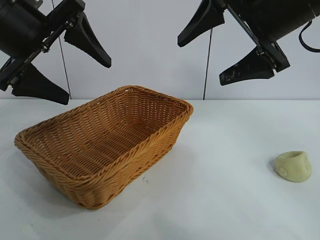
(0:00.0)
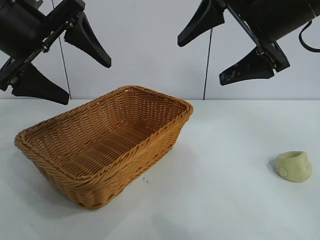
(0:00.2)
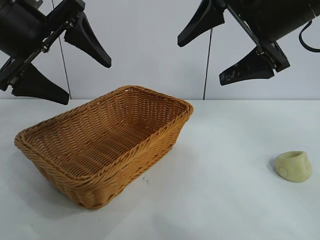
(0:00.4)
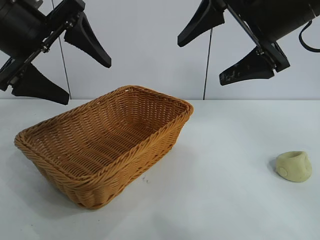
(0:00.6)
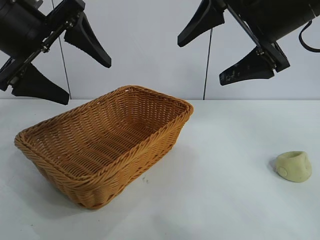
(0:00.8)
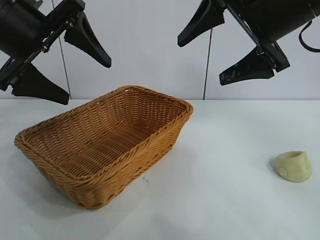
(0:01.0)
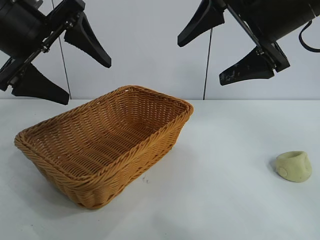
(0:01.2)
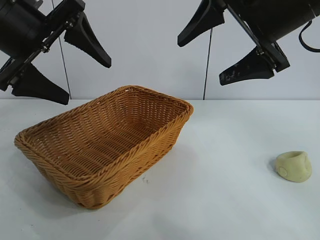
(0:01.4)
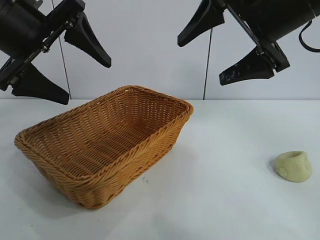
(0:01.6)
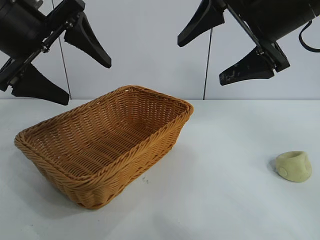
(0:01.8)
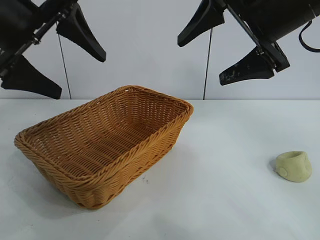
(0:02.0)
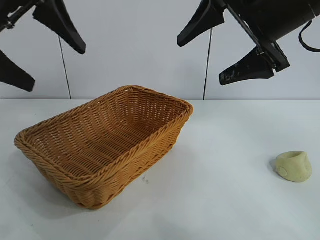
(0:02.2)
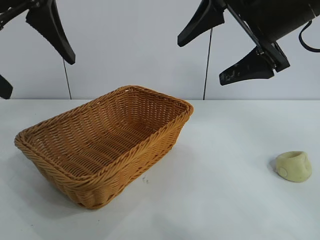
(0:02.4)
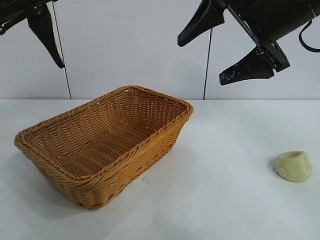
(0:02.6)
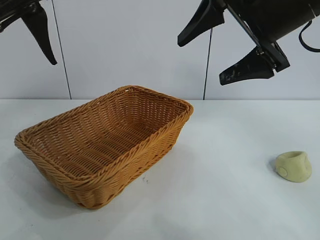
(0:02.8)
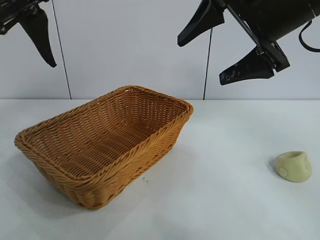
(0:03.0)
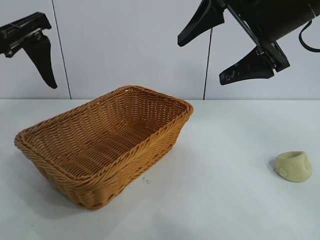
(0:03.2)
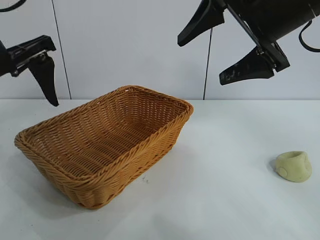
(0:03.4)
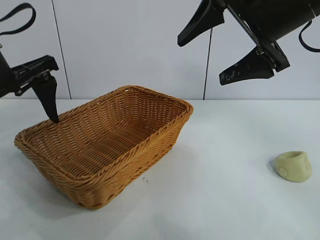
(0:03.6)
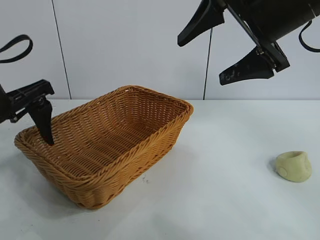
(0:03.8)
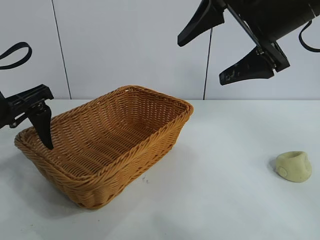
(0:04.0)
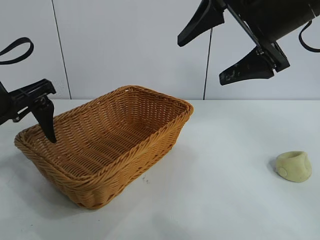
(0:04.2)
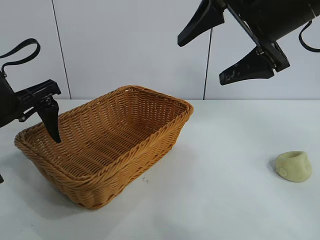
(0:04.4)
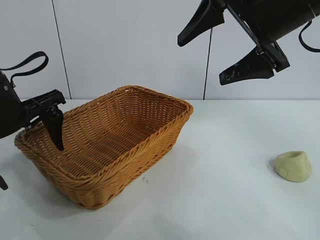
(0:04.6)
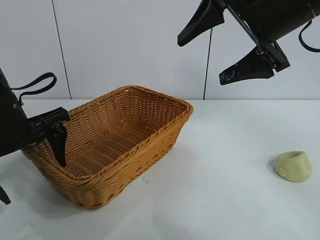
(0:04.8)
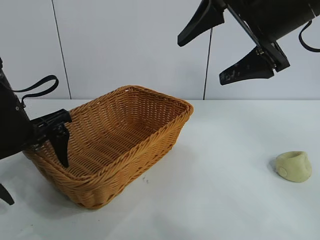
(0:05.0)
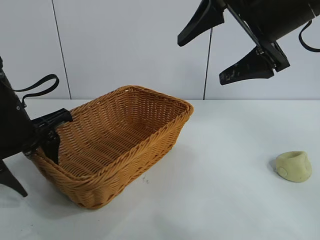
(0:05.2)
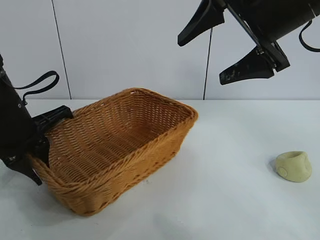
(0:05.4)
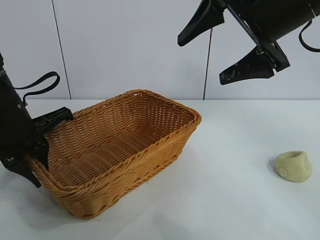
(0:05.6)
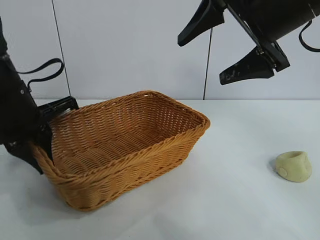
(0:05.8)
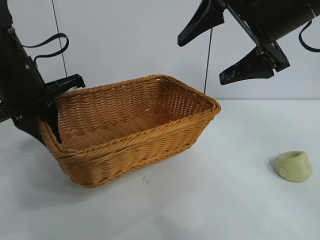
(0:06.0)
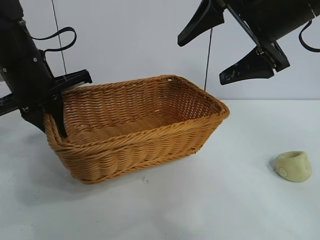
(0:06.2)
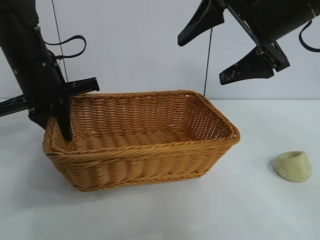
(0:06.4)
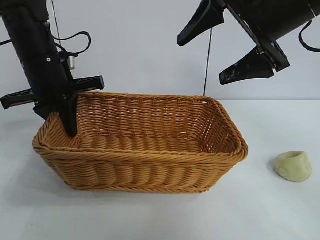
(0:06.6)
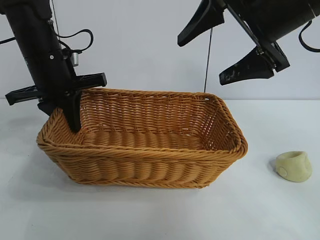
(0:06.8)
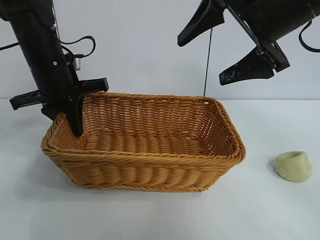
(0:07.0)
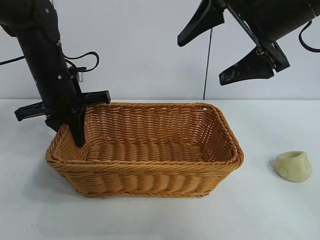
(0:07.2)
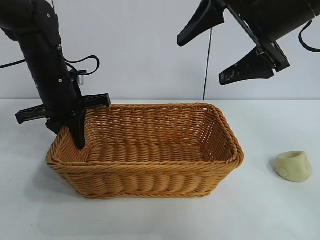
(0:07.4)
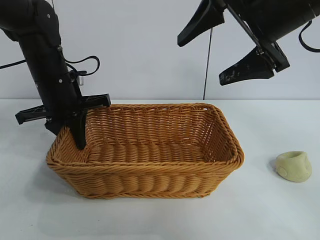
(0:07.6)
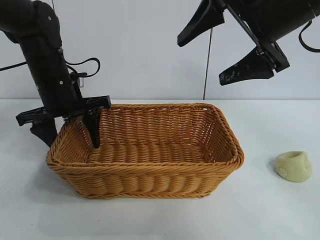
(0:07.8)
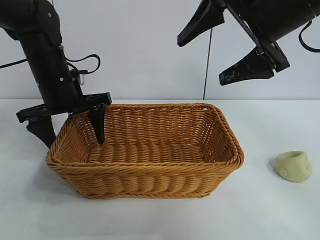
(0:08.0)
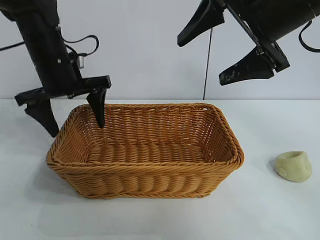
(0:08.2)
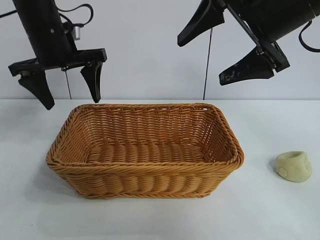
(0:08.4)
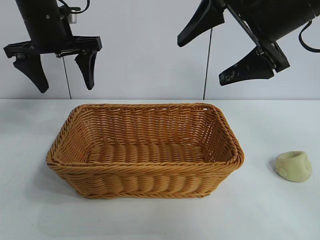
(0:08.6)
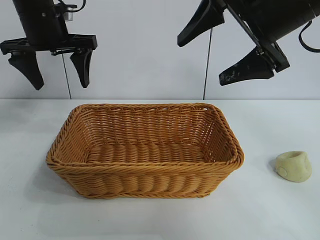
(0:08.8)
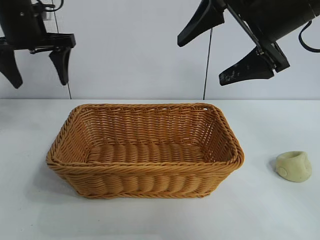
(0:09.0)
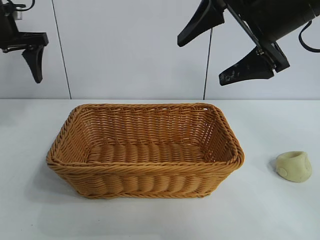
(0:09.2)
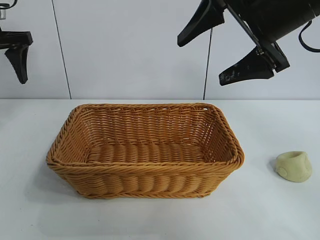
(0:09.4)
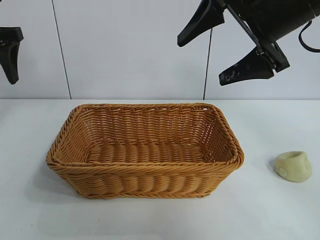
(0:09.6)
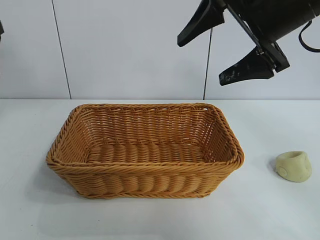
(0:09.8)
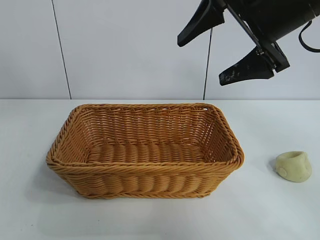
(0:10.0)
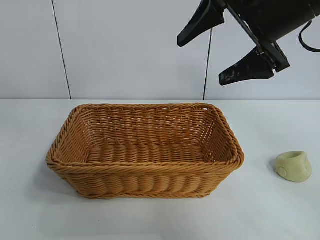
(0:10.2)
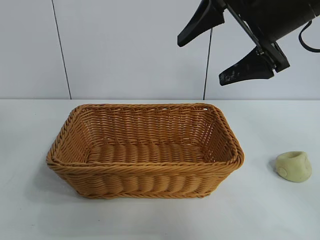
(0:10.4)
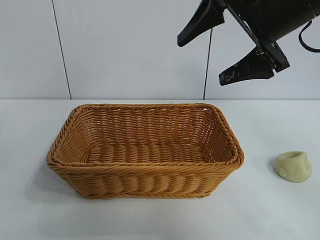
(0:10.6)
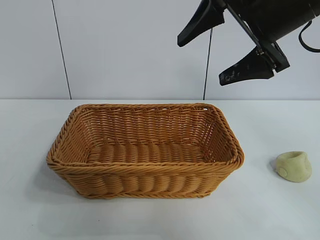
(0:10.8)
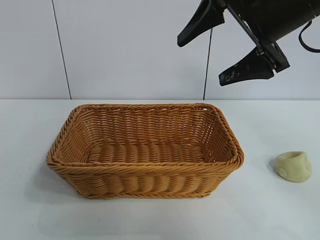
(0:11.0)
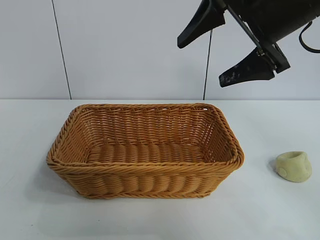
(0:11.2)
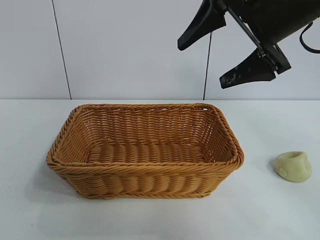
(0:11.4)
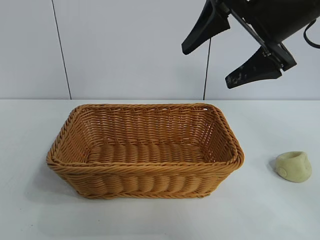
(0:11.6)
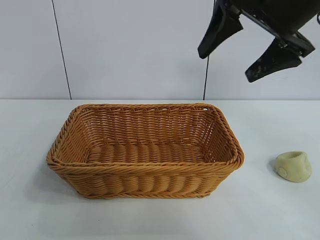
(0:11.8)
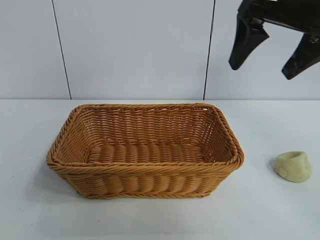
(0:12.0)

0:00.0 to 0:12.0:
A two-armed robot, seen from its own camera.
Task of the whole recording: pick up the egg yolk pastry and put it into the basket.
Step, 0:01.8 to 0:05.2: Grasp the basket with left gripper.
Step, 0:05.4 to 0:07.6: Place the basket in the center of view with left gripper.

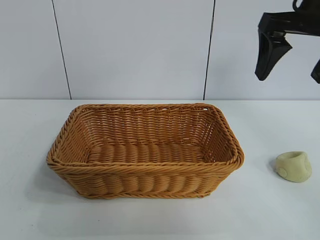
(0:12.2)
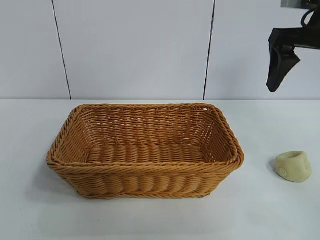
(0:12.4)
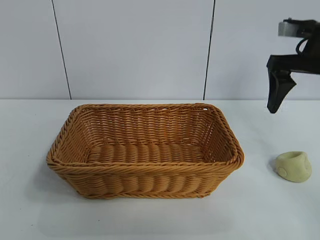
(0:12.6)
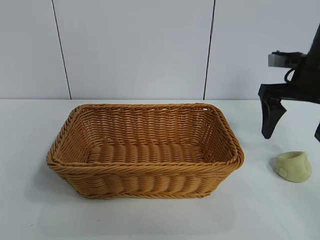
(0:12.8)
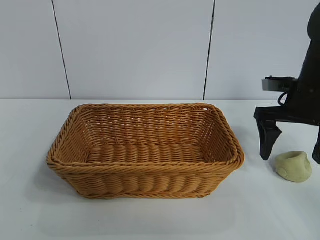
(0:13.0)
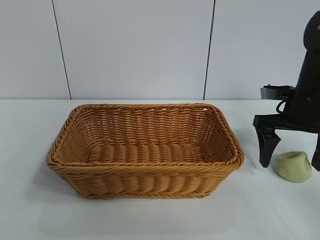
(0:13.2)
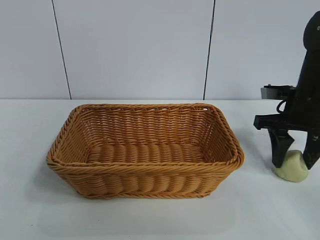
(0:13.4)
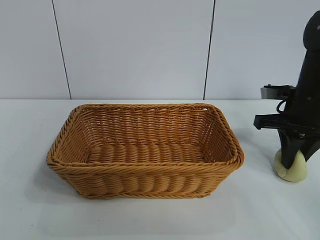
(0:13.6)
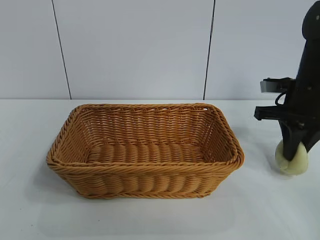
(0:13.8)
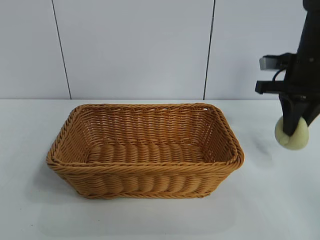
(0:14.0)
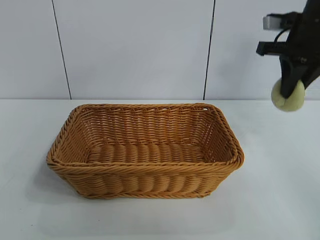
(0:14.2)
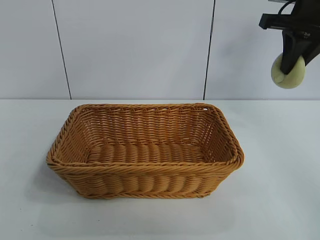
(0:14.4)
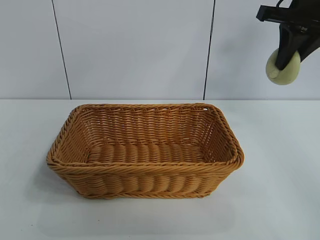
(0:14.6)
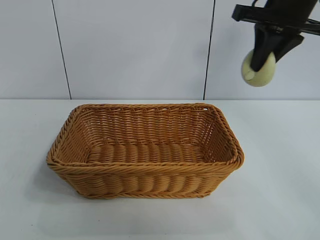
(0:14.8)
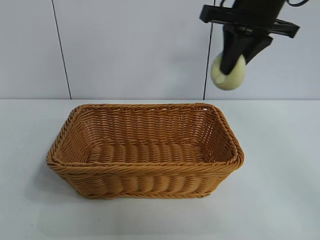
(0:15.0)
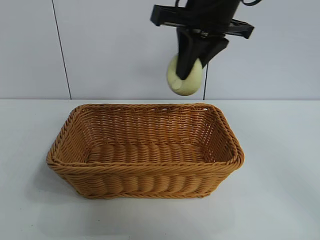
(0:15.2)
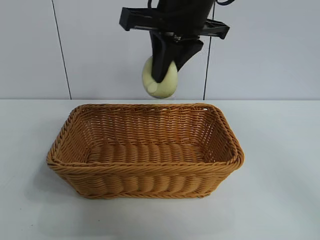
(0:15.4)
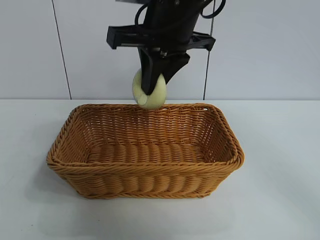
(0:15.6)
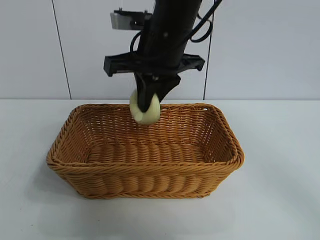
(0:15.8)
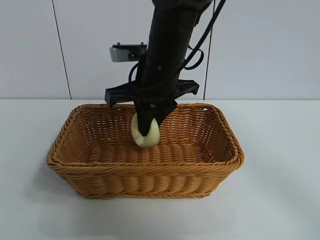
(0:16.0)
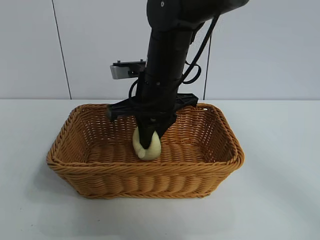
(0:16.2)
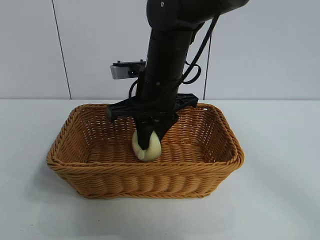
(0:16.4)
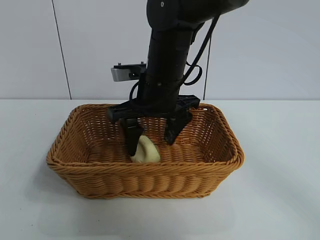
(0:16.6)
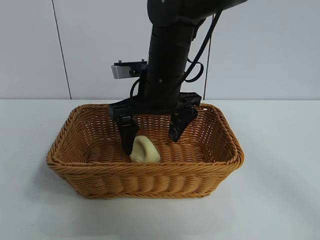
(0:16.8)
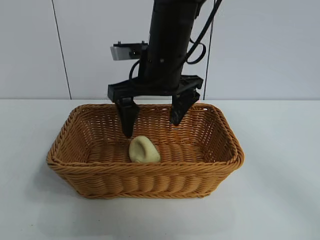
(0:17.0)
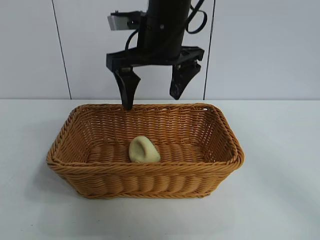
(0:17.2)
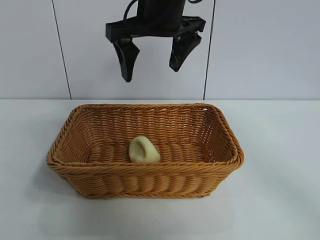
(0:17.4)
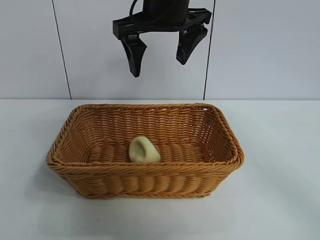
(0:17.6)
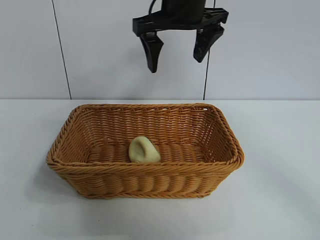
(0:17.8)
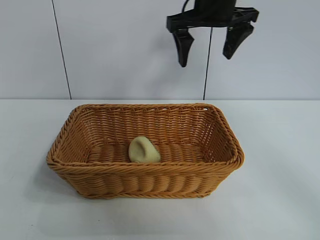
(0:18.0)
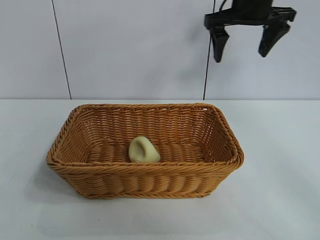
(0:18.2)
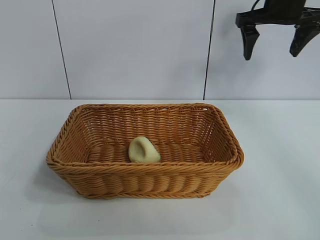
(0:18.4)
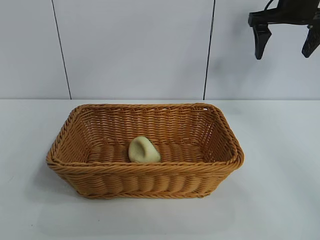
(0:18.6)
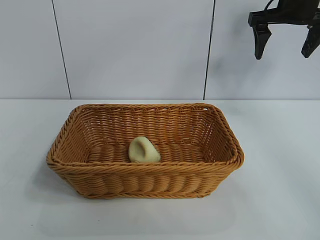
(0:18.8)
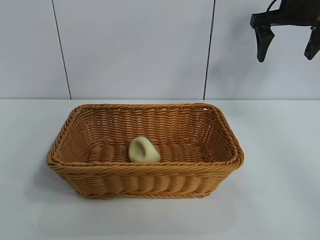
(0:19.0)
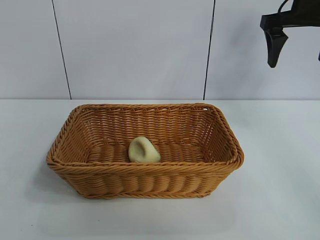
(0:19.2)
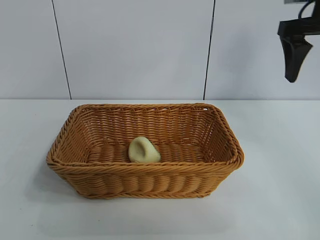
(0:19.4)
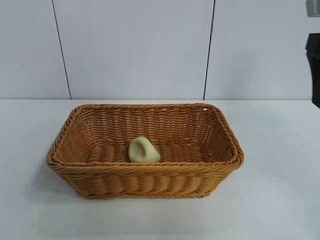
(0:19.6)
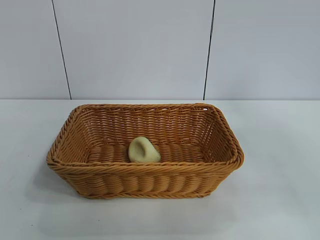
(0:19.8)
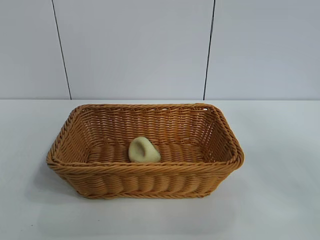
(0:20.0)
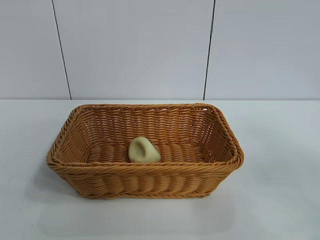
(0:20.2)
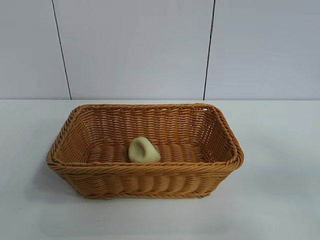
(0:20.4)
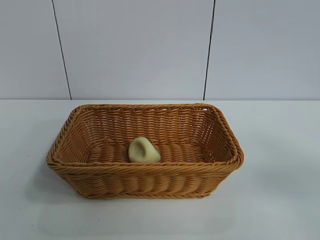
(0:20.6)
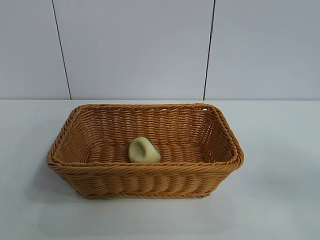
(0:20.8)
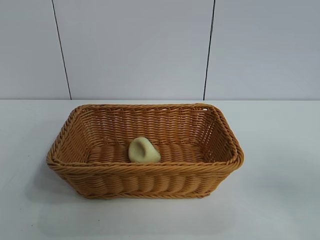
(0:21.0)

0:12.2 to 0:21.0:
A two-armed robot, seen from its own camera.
Task of the whole recording: pick up the egg yolk pastry and put it into the basket.
Step, 0:13.8 to 0:16.4: Place the egg yolk pastry in the basket with right gripper.

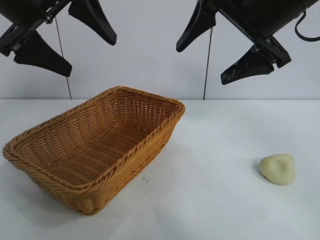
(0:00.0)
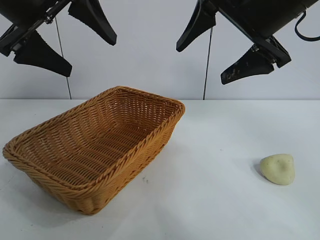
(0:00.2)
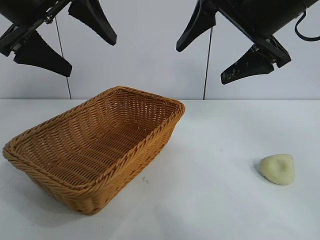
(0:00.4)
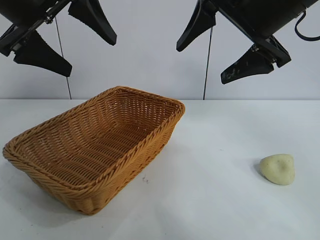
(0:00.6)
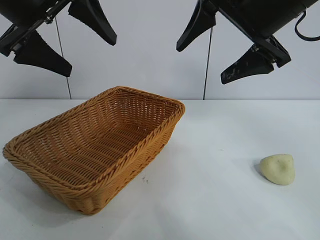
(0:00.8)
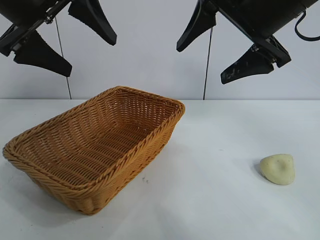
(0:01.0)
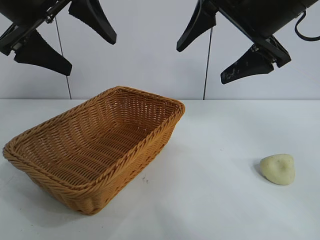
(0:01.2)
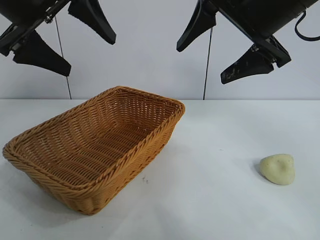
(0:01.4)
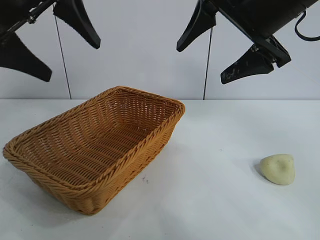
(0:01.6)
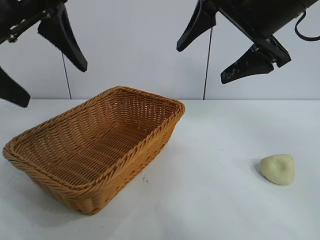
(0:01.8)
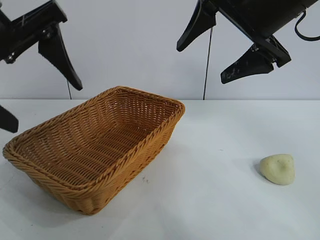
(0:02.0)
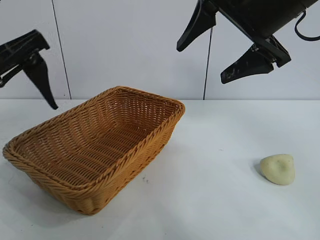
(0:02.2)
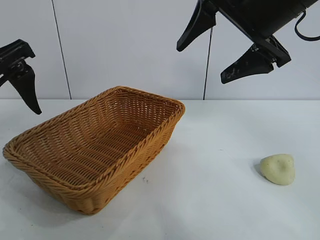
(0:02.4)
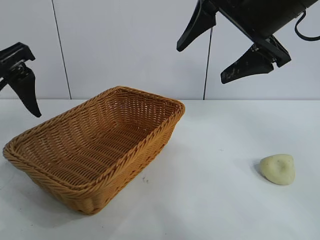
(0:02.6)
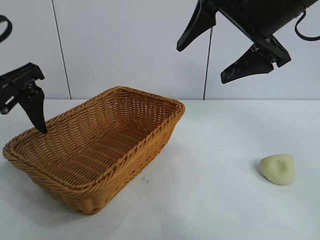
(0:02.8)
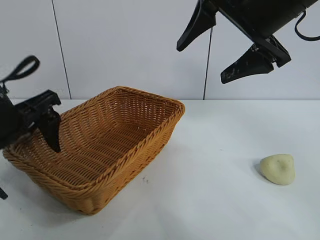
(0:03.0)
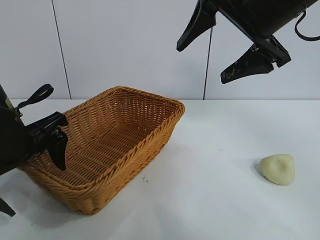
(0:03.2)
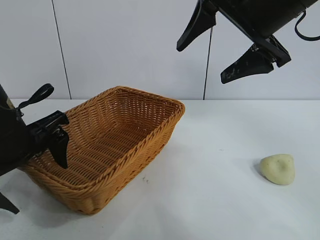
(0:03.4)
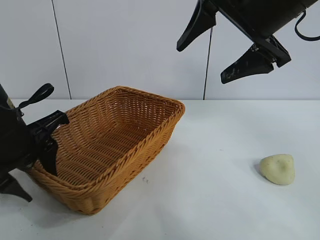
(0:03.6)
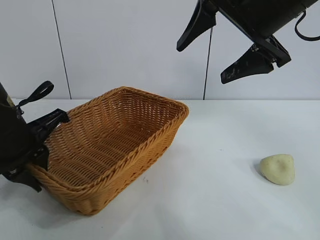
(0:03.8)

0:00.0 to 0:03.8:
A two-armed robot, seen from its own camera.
Task of the whole recording: pick up the egg yolk pastry and put it into the basket.
Step, 0:01.2 to 0:03.6: Grasp the basket with left gripper.
